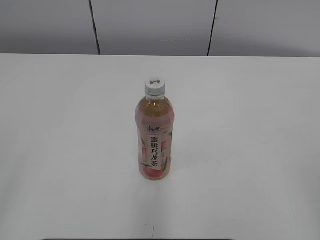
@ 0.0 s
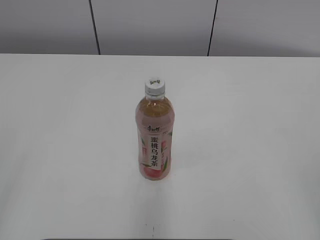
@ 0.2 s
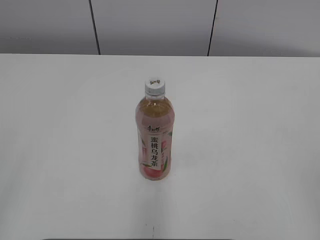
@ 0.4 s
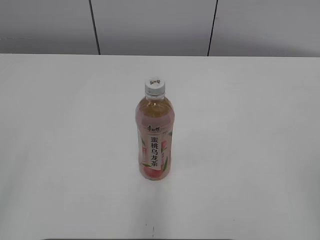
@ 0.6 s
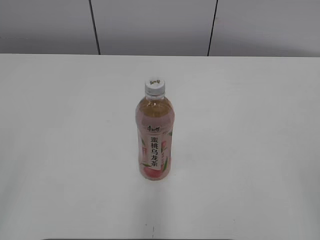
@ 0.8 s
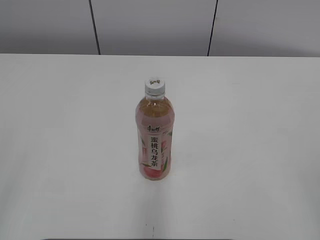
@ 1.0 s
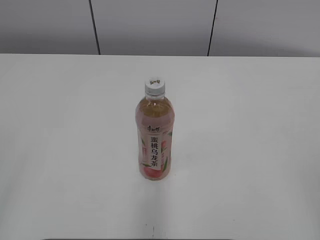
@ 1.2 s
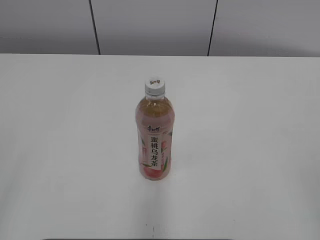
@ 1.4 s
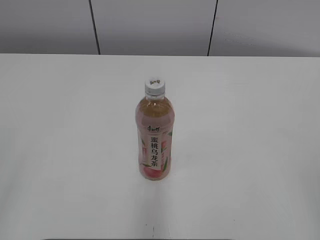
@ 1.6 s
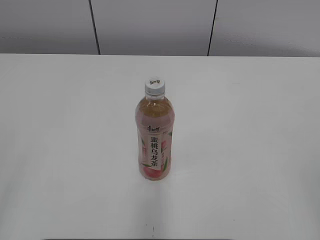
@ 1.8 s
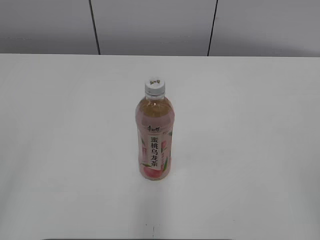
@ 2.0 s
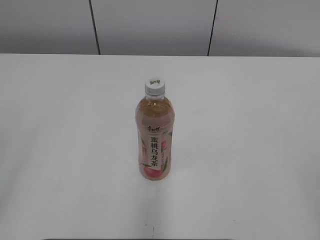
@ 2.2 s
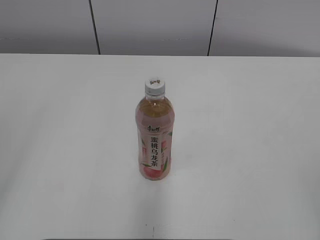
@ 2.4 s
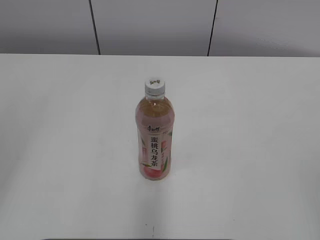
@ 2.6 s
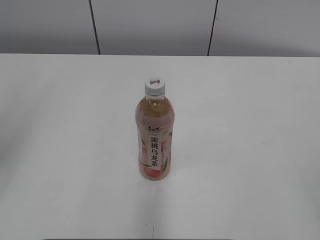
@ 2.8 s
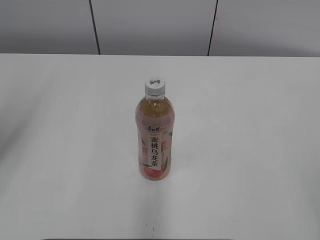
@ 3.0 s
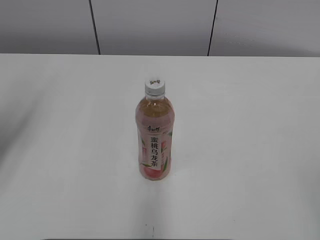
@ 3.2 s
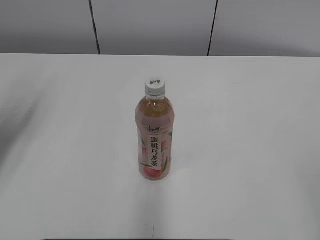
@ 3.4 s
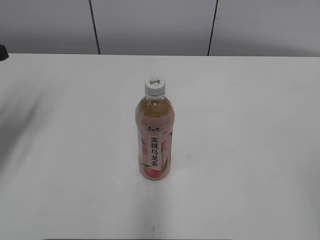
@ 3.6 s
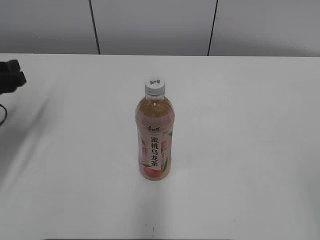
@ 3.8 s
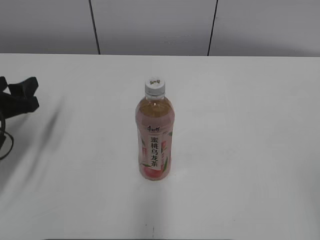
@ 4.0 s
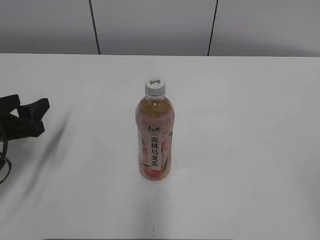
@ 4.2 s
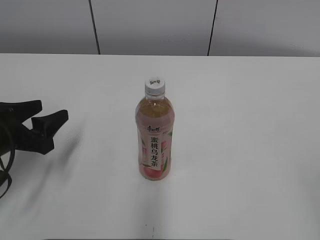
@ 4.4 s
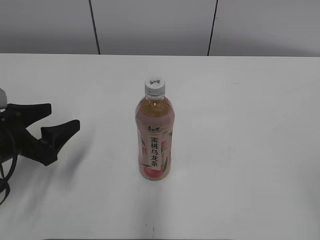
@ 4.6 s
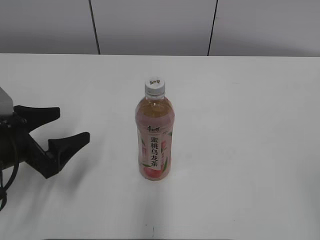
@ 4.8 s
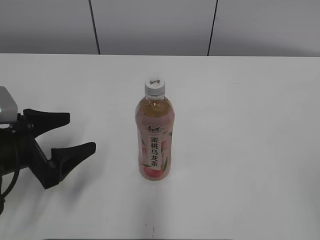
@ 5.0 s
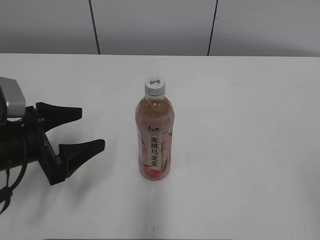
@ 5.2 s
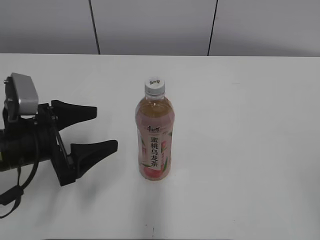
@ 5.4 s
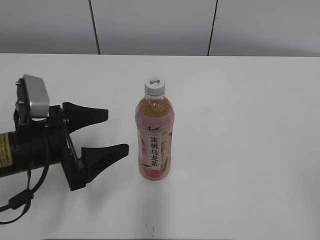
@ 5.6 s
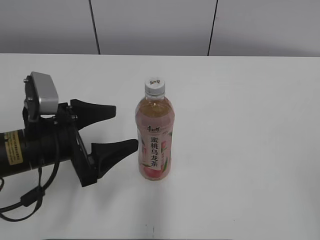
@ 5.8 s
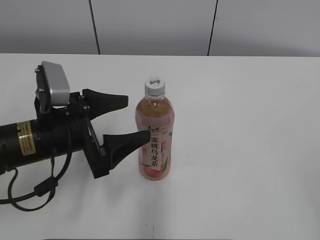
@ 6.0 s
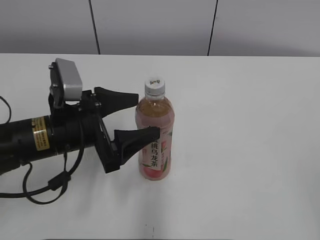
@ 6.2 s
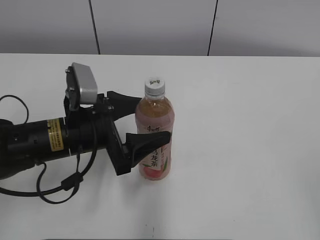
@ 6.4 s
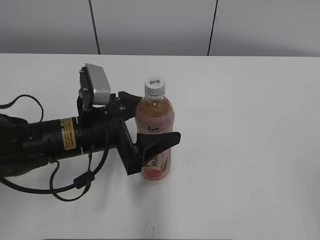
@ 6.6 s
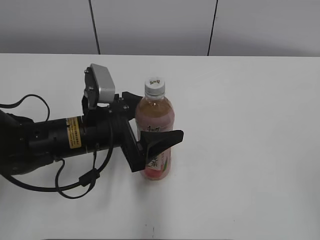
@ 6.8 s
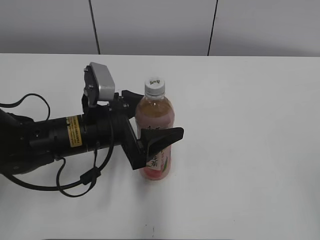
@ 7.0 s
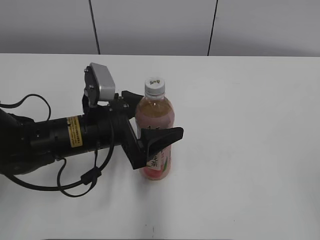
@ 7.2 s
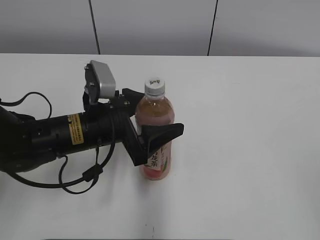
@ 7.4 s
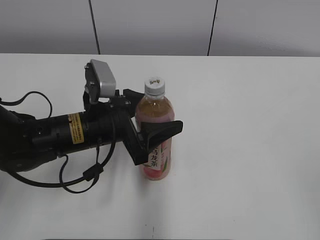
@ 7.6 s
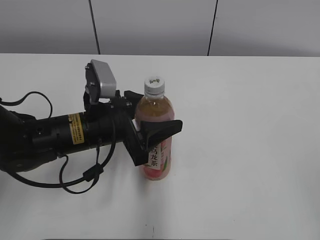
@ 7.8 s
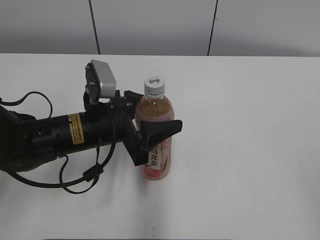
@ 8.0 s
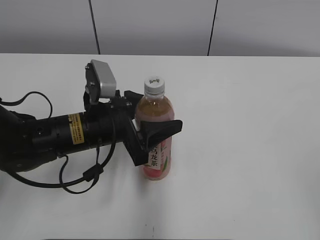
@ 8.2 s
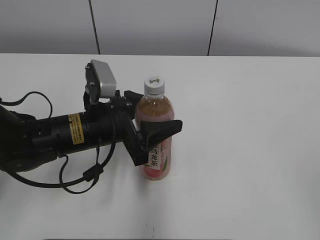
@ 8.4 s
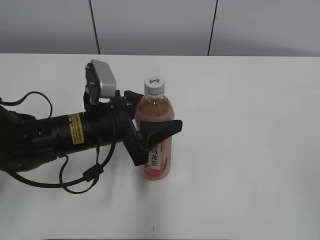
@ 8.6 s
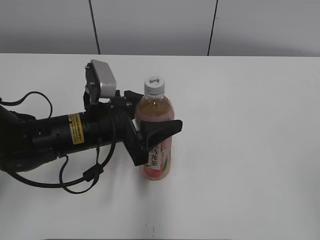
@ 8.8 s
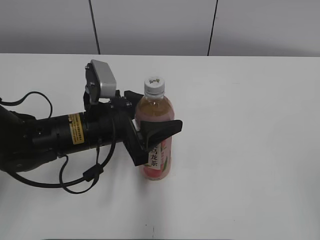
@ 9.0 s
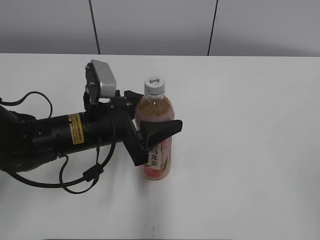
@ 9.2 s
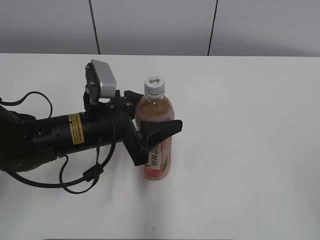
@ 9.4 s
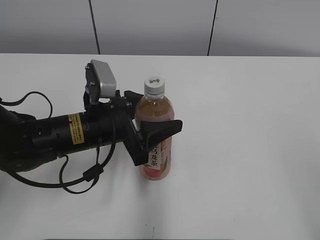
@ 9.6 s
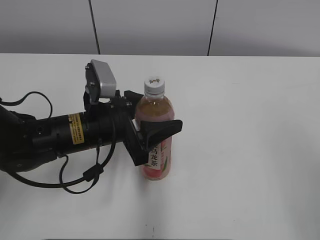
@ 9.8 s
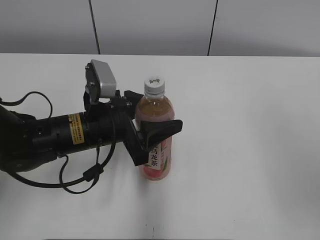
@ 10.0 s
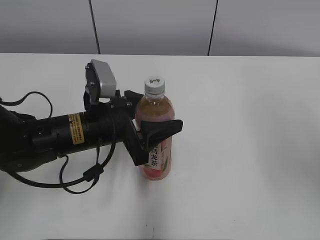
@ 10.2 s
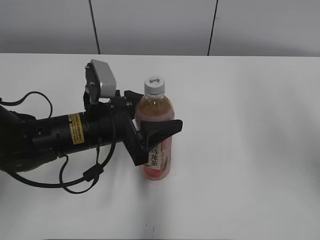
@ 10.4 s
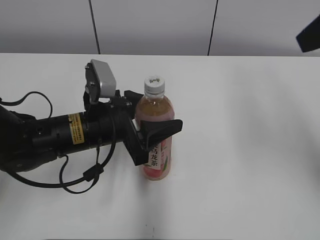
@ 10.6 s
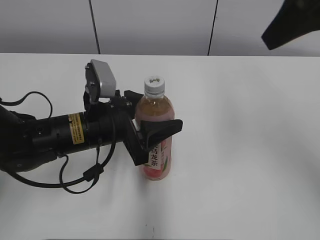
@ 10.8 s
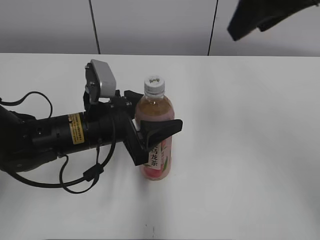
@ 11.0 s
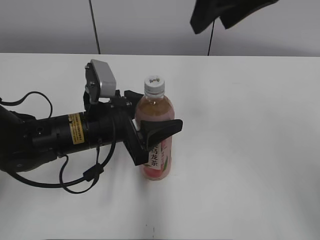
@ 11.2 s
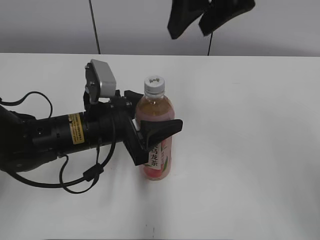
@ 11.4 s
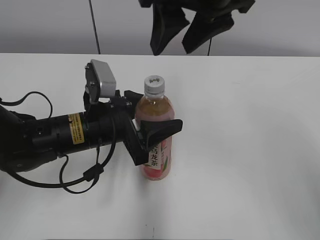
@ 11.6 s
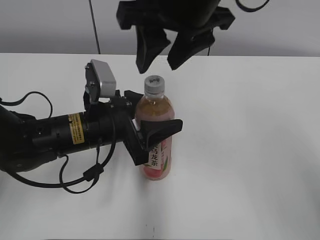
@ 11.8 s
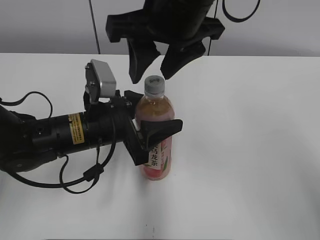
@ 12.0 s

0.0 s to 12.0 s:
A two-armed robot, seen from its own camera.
Step, 0.0 to 8.0 s: Grab the Peach Oolong Tea with the left hand.
1.6 to 3.0 s: The left gripper heads forward, covering about 20 cm.
3.0 to 4.4 s: The left gripper moves downward, approximately 20 cm.
4.4 to 6.0 s: The left gripper moves to the right, some 10 cm, and opens.
6.0 to 7.6 s: The left gripper heads to the right, covering roughly 5 cm, and closes up.
7.6 to 9.0 s: The left gripper closes.
9.0 to 10.4 s: The right gripper travels forward and upward by some 20 cm.
10.4 to 12.0 s: The right gripper travels to the left and forward by approximately 25 cm.

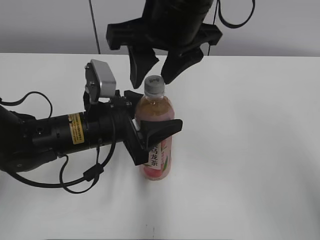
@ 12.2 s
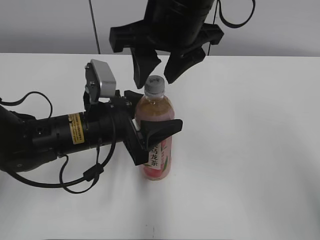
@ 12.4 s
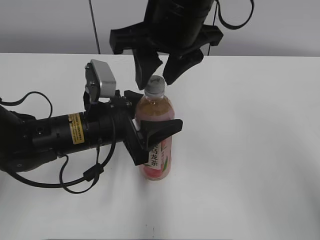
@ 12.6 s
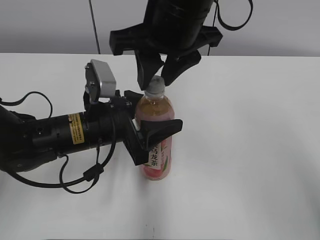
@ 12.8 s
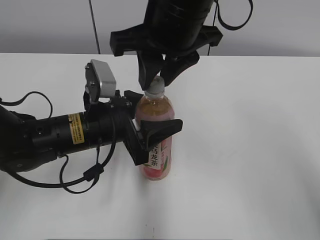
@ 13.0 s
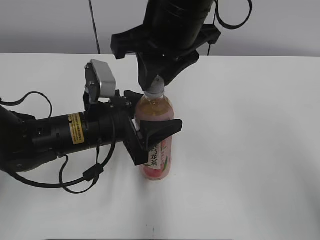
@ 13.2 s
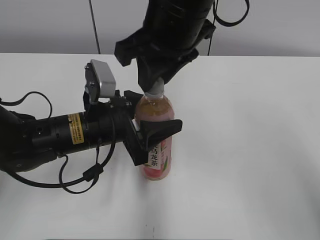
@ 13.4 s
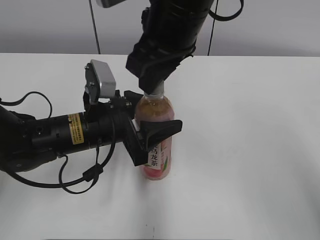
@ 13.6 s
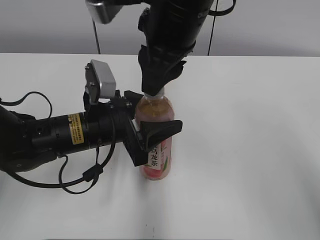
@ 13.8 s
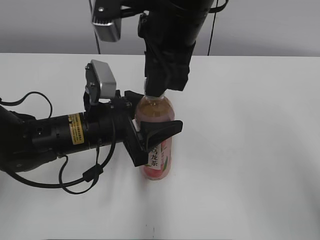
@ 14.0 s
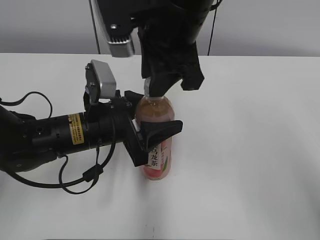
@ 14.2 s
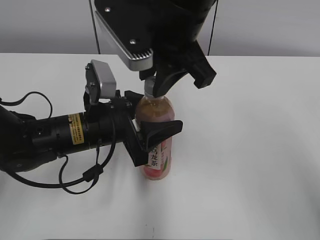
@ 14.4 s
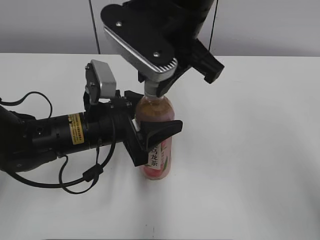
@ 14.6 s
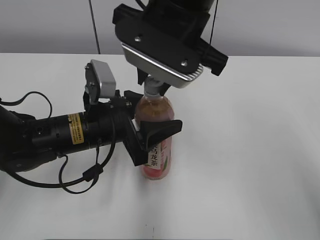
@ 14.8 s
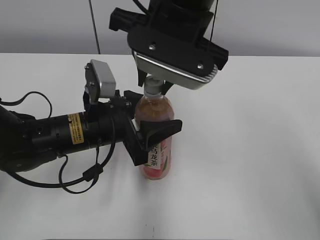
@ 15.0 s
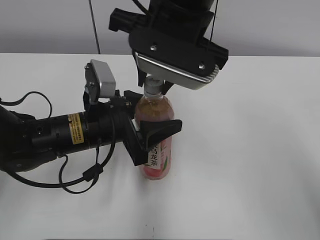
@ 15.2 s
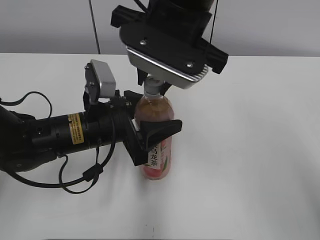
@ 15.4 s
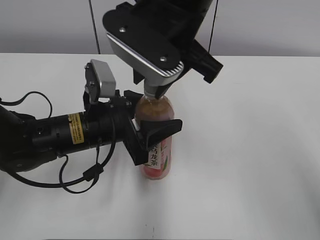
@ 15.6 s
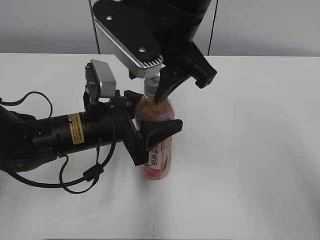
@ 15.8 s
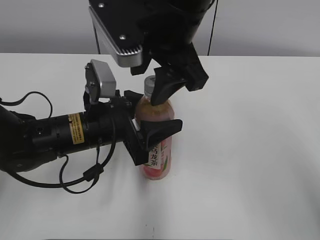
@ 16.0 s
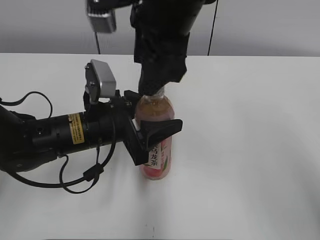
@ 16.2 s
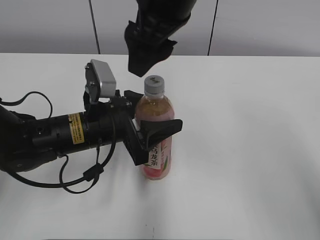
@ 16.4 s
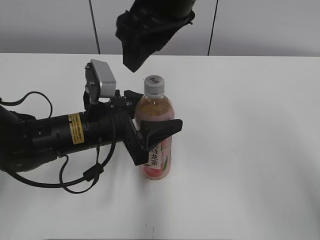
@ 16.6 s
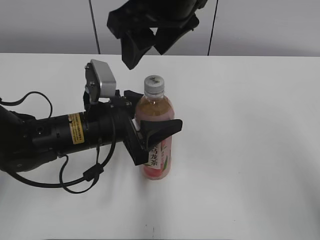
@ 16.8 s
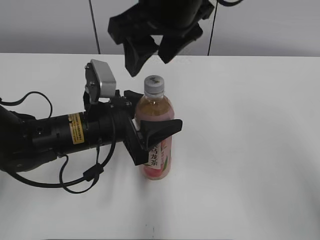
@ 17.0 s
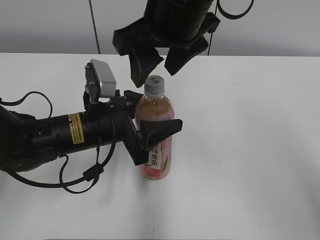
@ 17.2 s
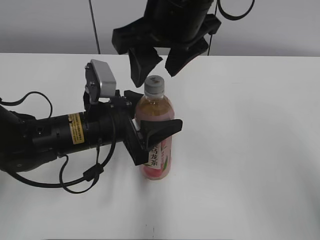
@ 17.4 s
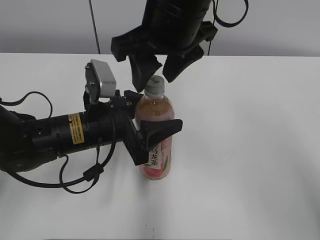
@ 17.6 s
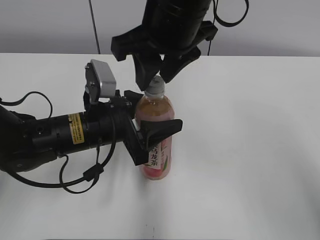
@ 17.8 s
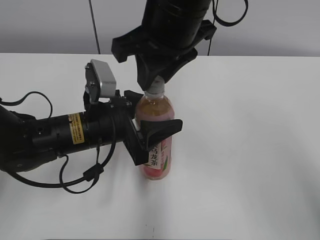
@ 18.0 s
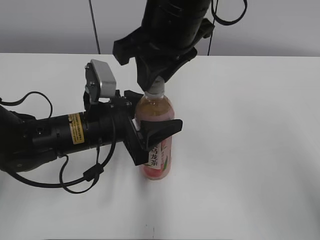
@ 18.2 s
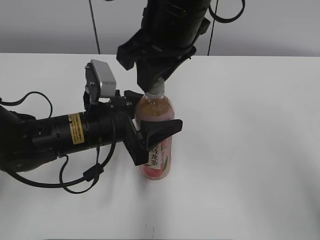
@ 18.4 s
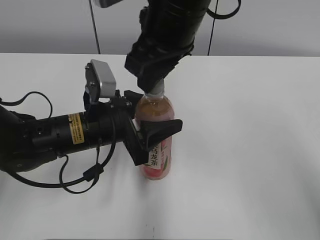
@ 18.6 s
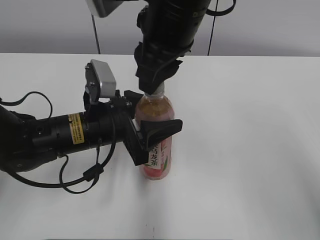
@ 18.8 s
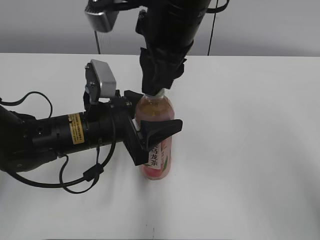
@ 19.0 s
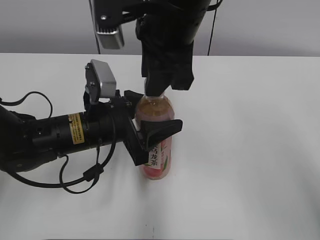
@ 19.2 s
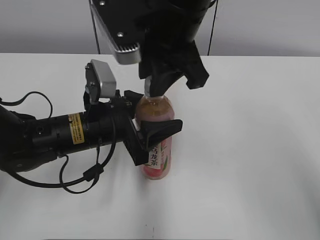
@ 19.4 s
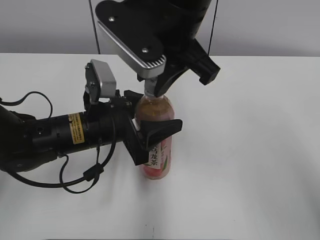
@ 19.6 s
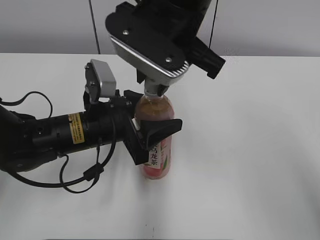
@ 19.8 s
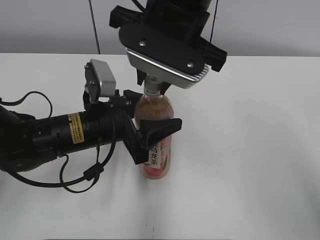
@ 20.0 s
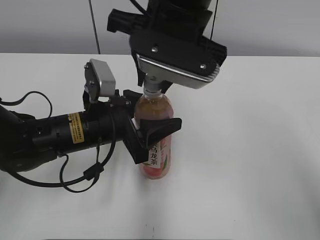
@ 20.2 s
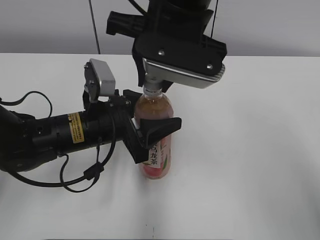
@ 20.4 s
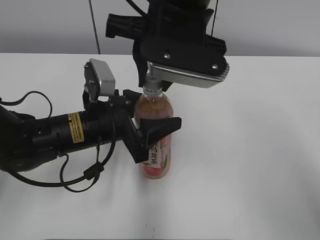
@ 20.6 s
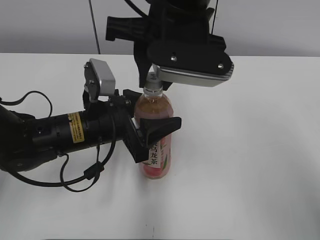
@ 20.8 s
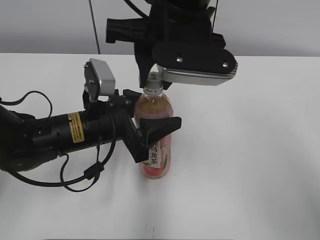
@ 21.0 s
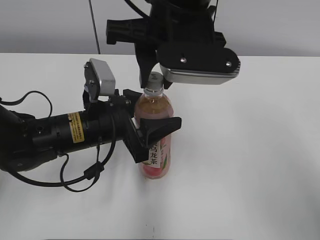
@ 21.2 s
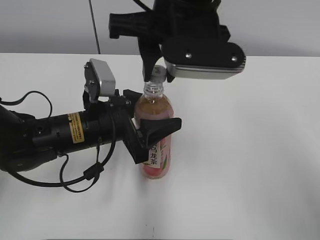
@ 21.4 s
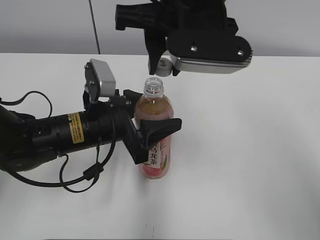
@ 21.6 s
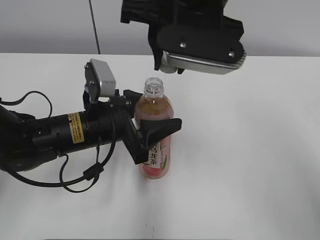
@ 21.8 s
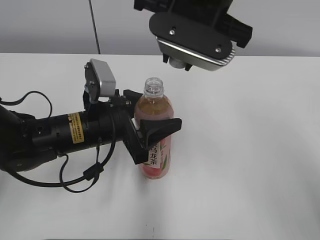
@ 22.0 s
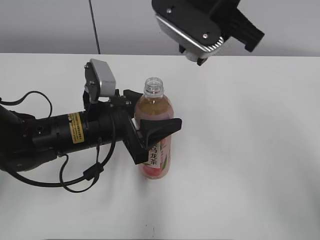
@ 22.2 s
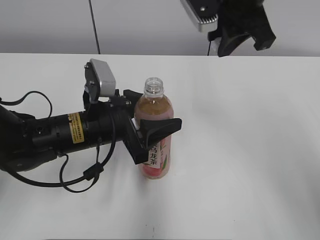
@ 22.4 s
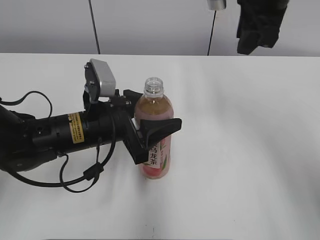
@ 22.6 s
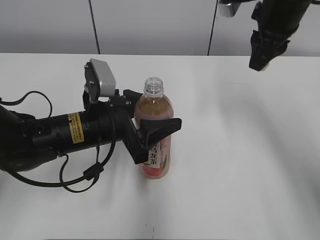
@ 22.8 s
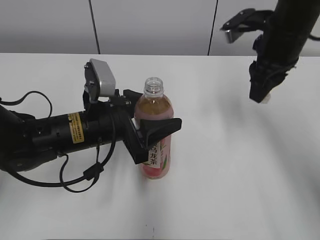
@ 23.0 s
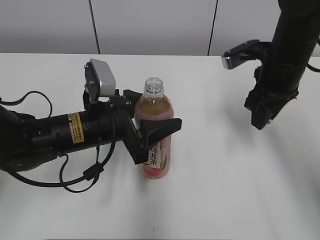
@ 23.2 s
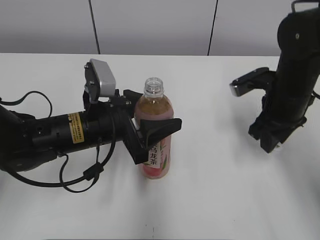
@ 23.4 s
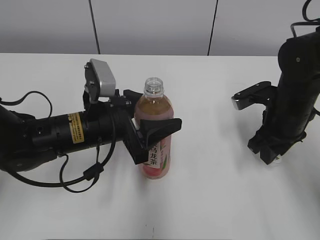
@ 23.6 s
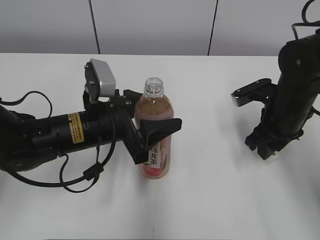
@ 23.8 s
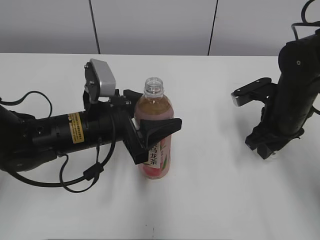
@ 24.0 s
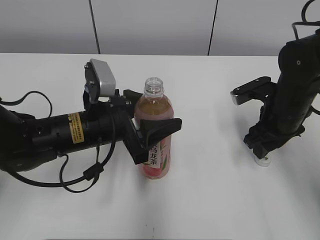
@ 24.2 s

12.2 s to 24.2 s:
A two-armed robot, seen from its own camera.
12.2 to 13.8 s: The right gripper closes up.
15.2 to 16.6 s: The right gripper opens its fingers.
16.6 to 18.2 s: The right gripper closes its fingers.
21.2 to 22.6 s: The right gripper is displaced to the right and forward by some 15 cm.
22.6 to 24.2 s: The right gripper goes some 20 cm downward, and opens up.
